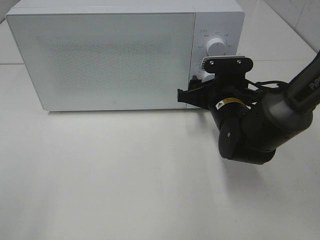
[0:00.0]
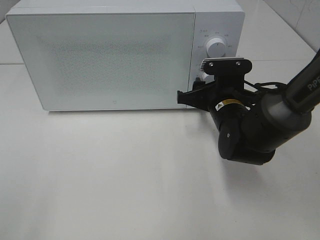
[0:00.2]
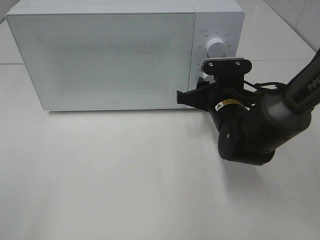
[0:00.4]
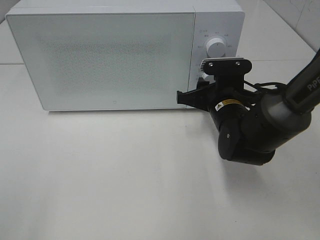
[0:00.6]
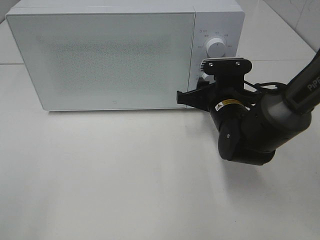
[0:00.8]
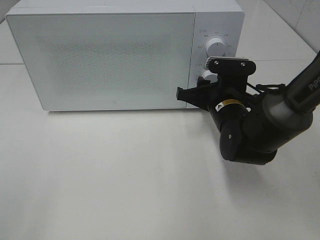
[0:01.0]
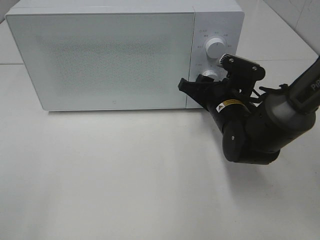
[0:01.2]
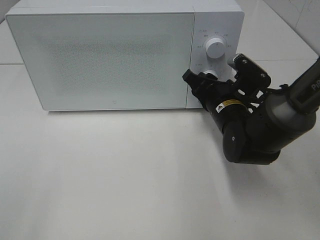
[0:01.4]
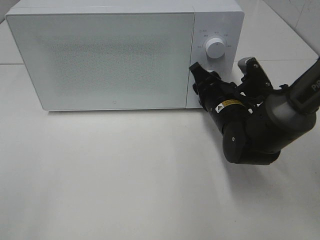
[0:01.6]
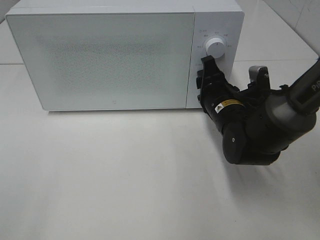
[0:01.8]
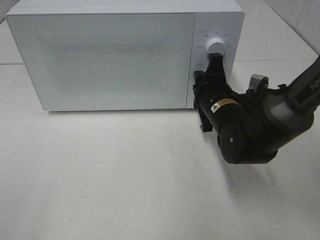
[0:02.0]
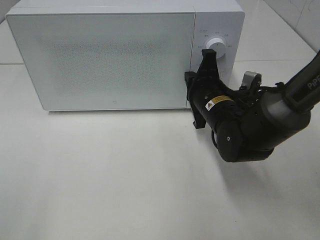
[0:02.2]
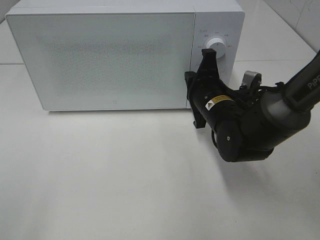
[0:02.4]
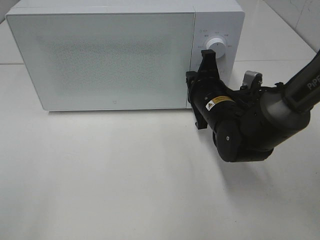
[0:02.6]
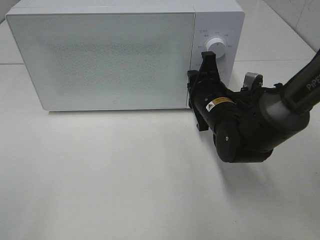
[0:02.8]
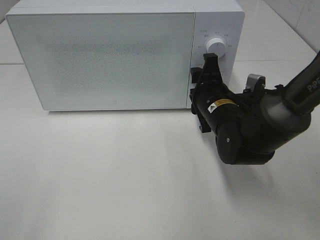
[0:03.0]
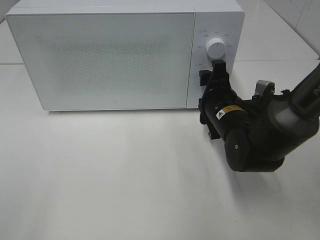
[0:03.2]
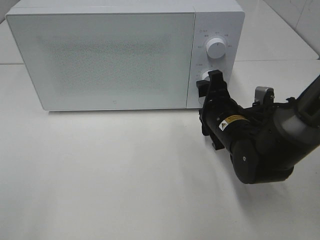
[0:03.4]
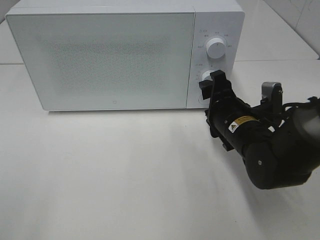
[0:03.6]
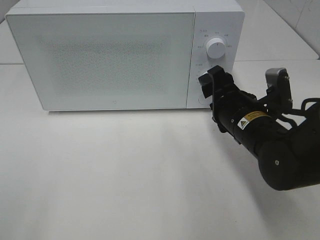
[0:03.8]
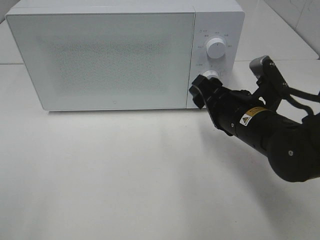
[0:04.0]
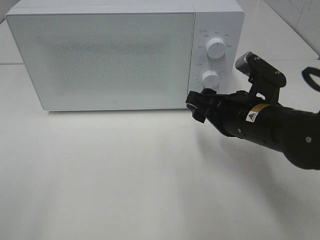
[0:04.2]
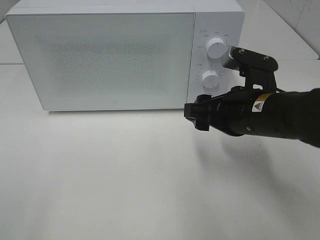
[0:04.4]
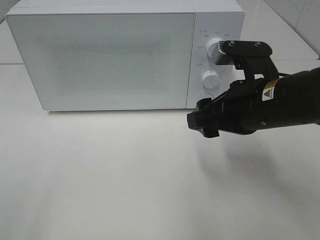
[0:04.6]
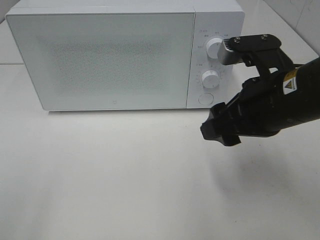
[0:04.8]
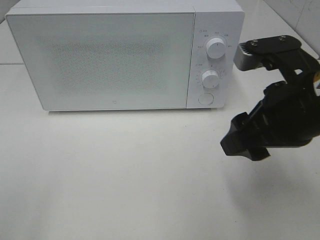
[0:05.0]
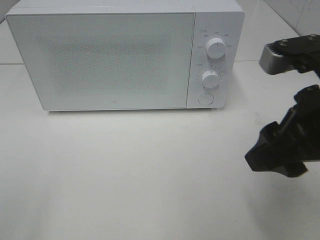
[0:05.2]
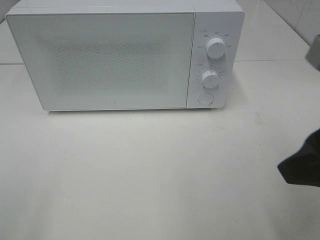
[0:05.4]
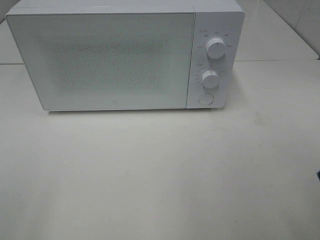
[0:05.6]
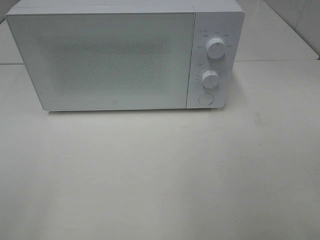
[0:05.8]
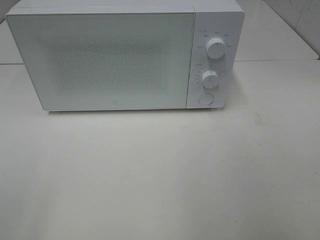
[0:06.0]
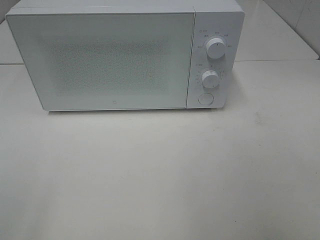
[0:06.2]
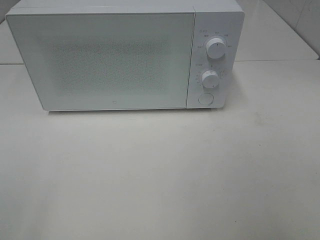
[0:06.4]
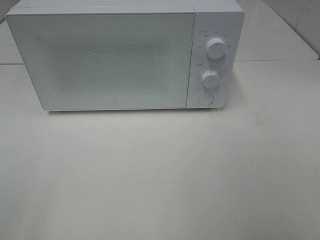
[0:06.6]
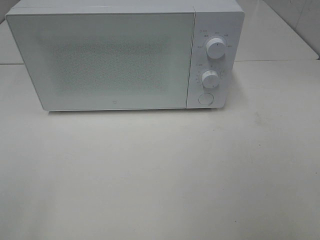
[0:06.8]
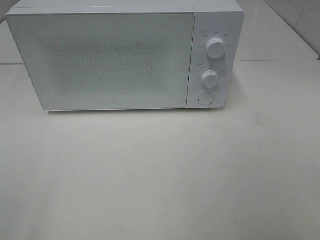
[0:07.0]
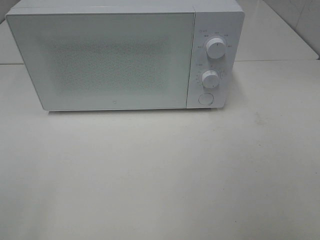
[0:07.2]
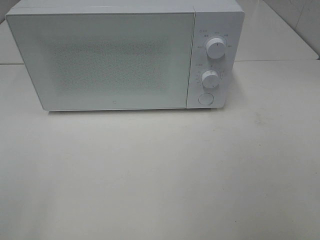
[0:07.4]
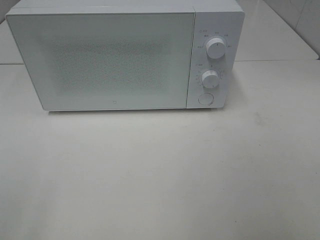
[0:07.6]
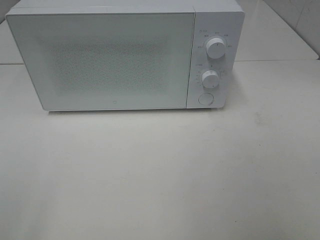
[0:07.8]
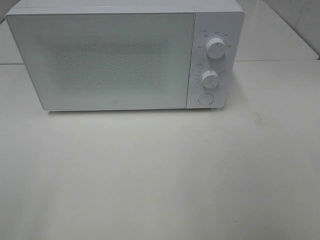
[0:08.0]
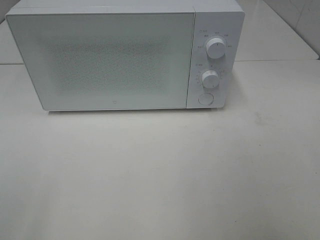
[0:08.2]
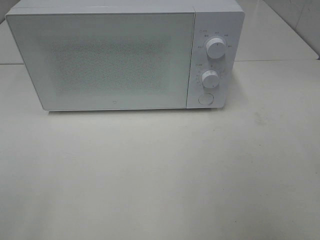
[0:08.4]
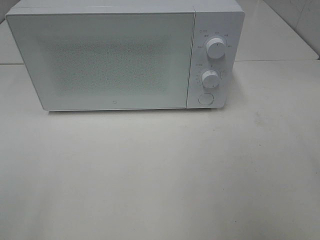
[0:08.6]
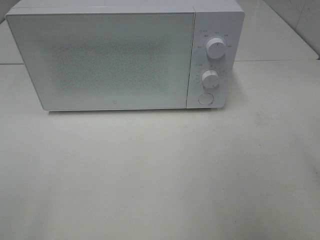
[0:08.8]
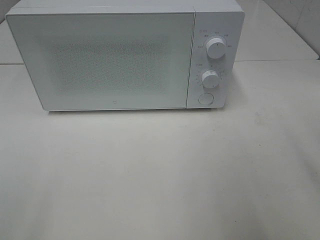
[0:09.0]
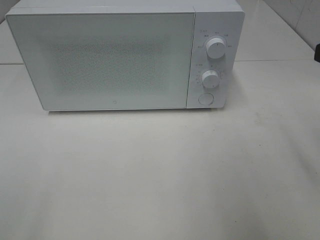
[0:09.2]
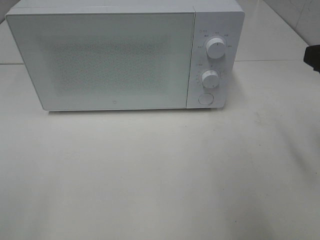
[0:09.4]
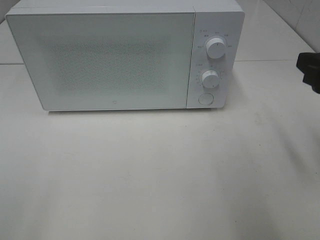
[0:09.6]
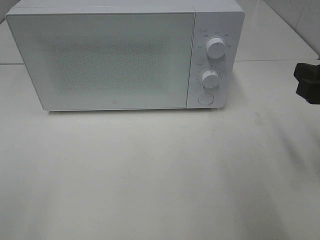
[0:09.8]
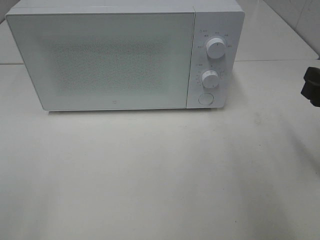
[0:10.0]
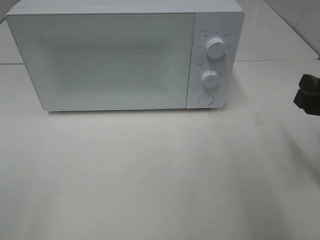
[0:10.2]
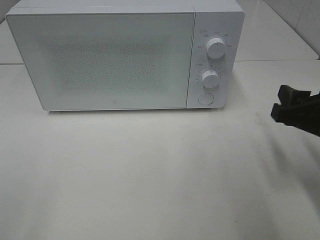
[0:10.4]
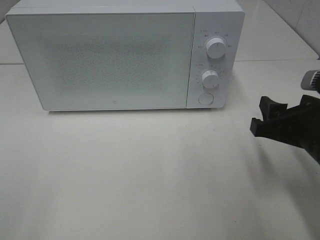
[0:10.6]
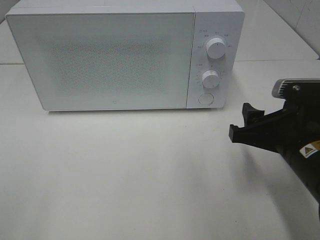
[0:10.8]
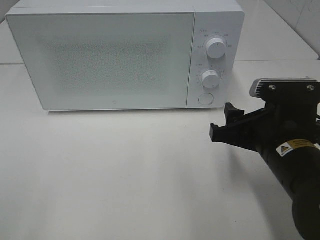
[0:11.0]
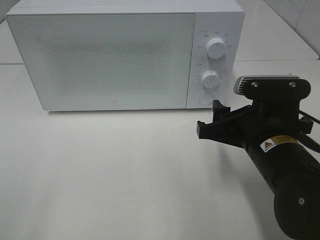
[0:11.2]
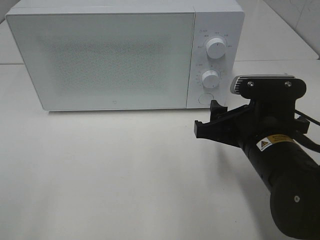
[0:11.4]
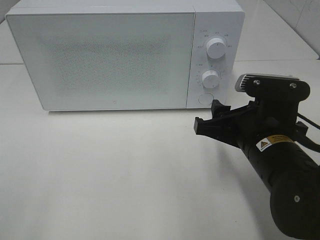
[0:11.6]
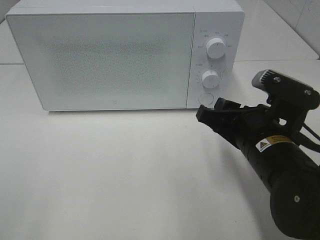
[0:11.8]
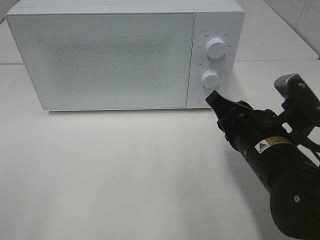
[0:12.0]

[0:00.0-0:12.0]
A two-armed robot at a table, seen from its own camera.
Task of the whole recording: Heat the burger.
Step, 0:00.0 to 0:02.2: Right hand: twist timer button.
0:01.6 to 0:03.0: The right gripper closes, then opens again.
0:03.0 to 0:04.4: The right gripper is displaced backward and upward by roughly 10 cm.
0:04.4 to 0:06.0: The right gripper moves backward, upward and to the right, approximately 30 cm.
0:09.0 to 0:10.4: The right gripper travels downward by some 15 cm.
0:10.4 to 0:12.0: The right gripper heads to the left, covering about 10 cm, and closes up.

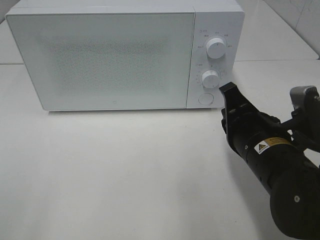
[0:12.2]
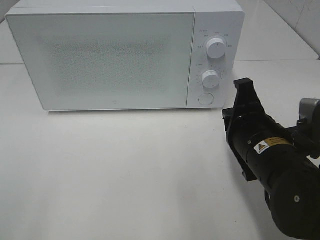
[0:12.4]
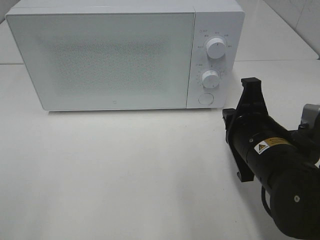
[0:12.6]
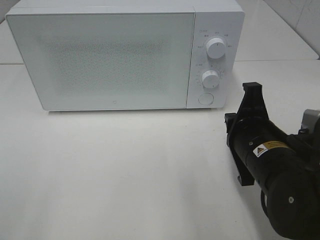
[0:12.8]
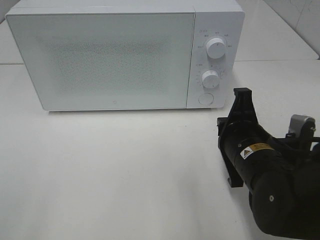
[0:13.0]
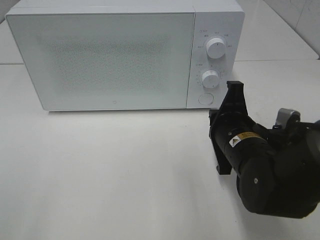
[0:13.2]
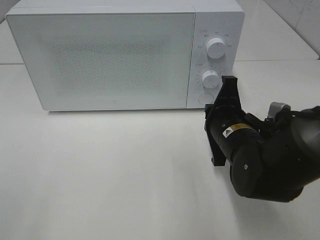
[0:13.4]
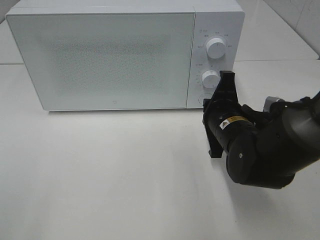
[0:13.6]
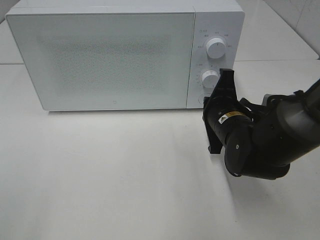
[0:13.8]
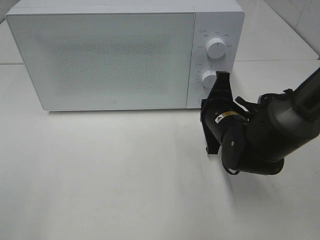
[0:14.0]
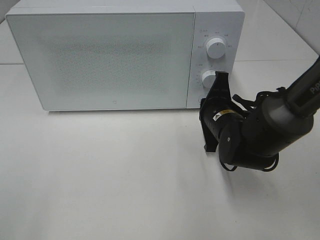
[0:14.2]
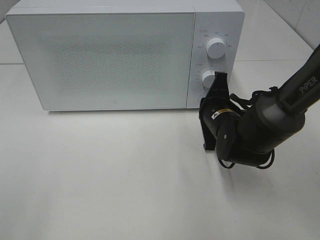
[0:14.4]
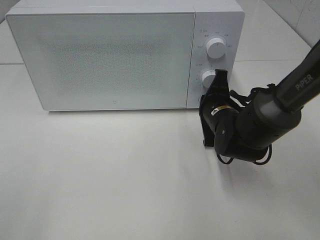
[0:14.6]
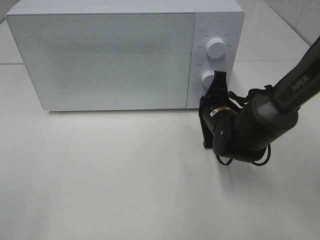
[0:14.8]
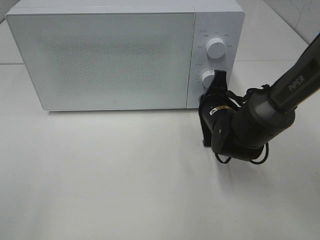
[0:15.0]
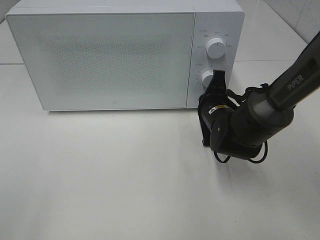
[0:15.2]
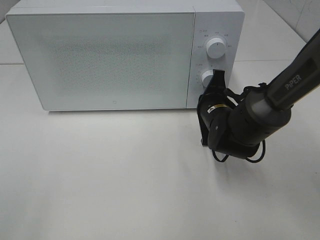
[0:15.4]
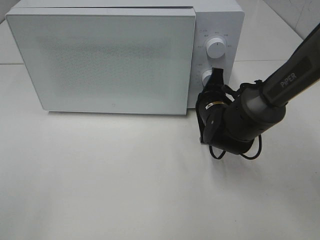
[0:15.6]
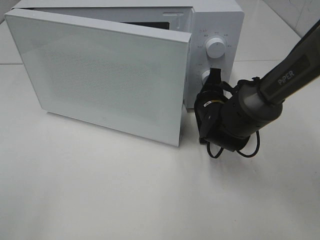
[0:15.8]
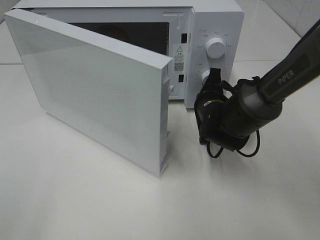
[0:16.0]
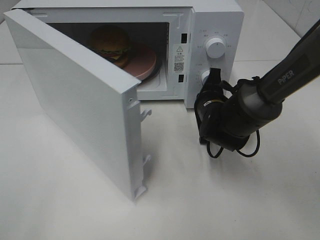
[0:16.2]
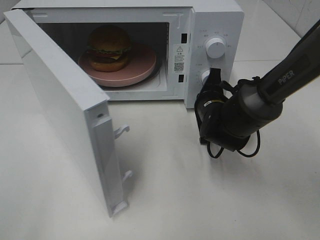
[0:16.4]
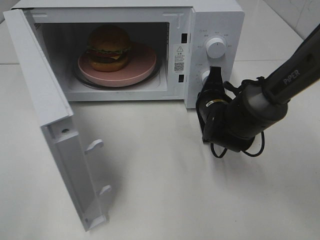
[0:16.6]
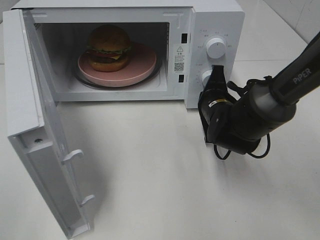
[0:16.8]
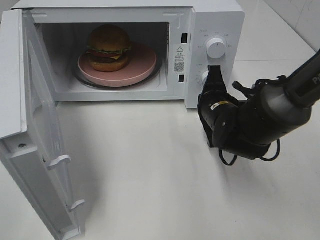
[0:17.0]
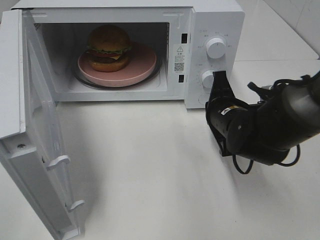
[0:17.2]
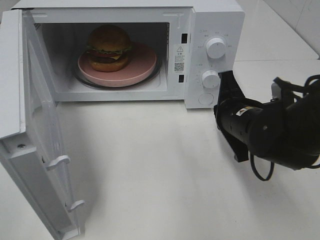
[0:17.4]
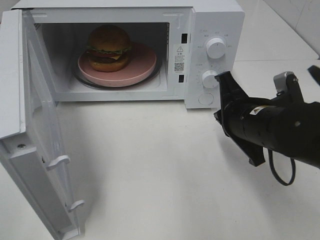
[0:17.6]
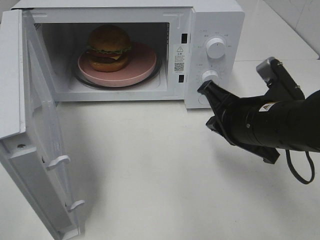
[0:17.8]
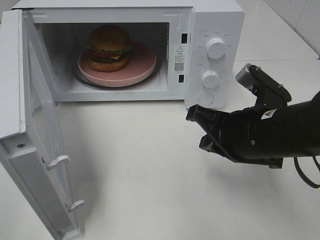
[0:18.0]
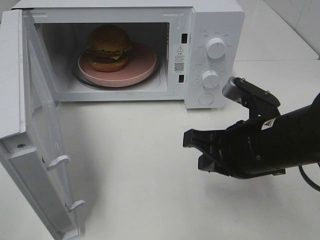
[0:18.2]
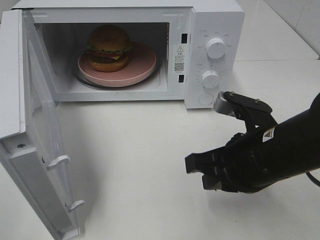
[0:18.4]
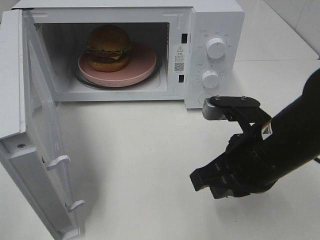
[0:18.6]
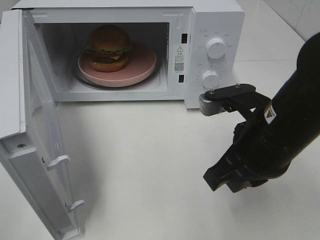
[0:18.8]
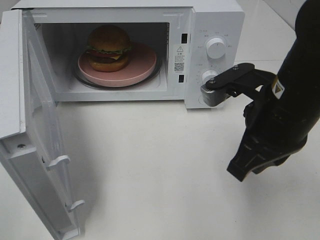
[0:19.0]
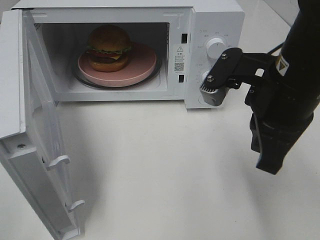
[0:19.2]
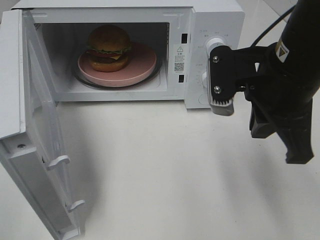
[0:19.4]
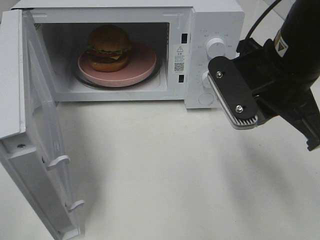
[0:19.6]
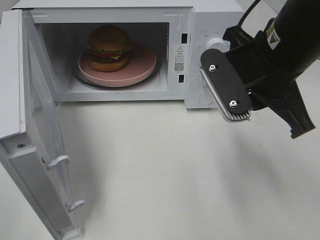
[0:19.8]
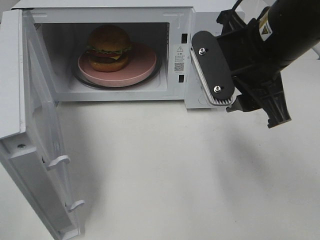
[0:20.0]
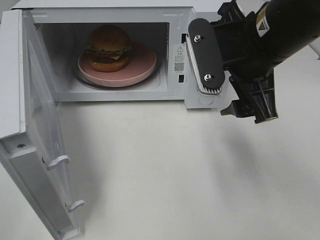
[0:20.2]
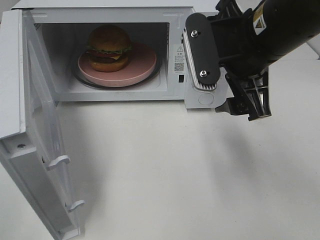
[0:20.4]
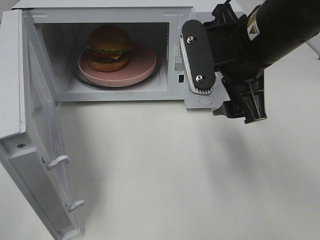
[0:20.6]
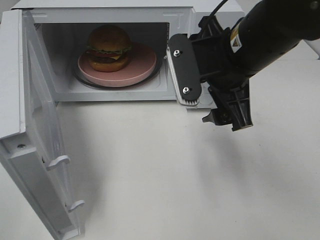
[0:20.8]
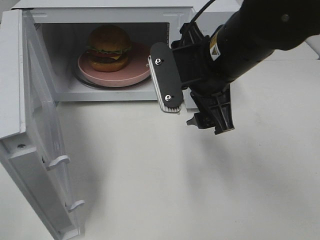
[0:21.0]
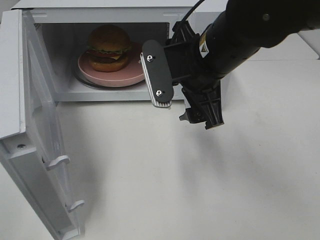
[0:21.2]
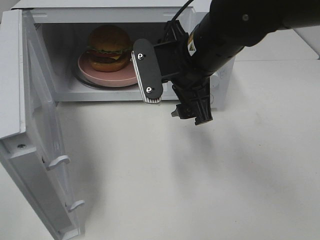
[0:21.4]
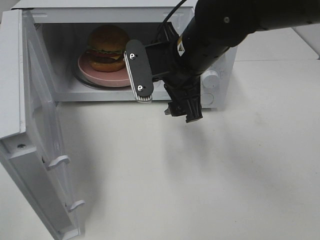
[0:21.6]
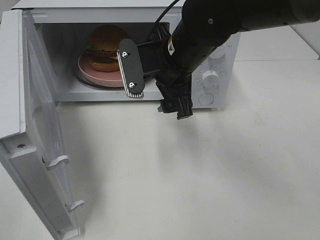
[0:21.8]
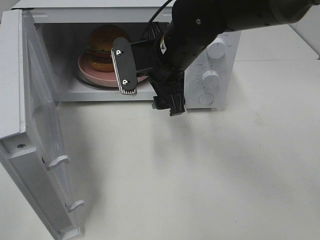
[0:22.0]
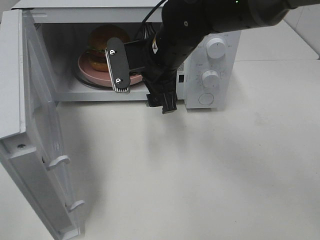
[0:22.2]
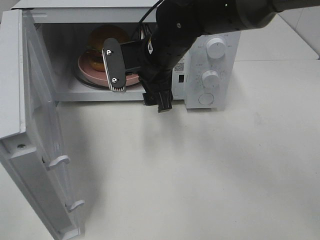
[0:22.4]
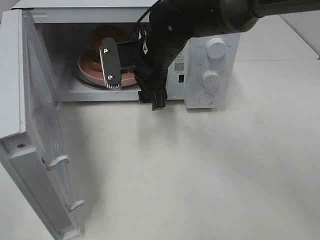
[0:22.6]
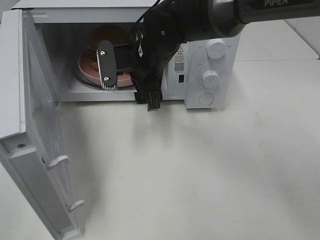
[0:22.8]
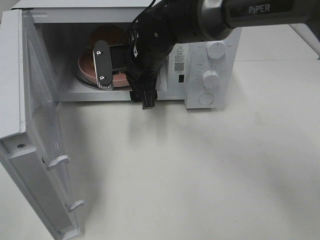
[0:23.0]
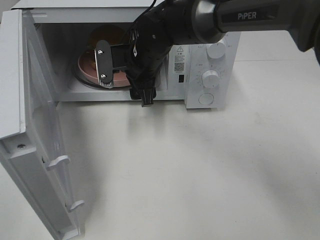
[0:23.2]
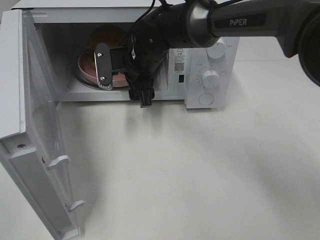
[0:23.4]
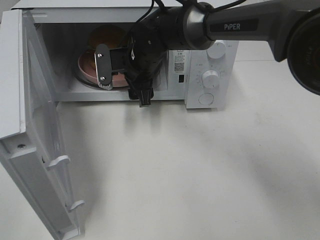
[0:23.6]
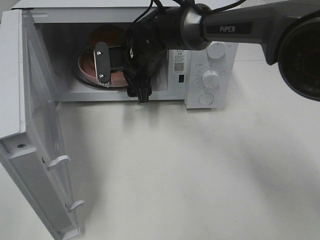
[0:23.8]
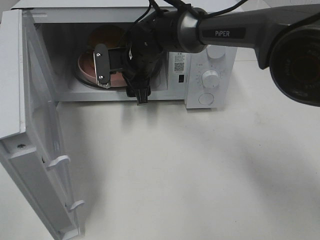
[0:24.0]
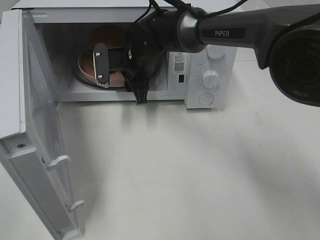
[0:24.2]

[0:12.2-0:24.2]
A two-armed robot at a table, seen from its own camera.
Task of the whole recording: Heat the burger.
Step, 0:12.2 to 0:16.8: Right hand: press the switch.
0:12.2 to 0:13.8: The right gripper shifts about 10 cm forward.
0:13.8 to 0:15.2: The right gripper travels forward by approximately 5 cm.
0:16.6 to 0:18.2: The right gripper goes about 20 cm backward and upward.
0:18.2 to 0:19.8: The right gripper moves upward, about 10 cm.
0:19.8 to 0:21.2: The right gripper travels to the left by some 5 cm, and opens its fingers.
0:21.2 to 0:22.6: The right gripper is displaced forward and to the left by approximately 10 cm.
0:22.6 to 0:24.2: The right gripper moves forward, roughly 5 cm.
